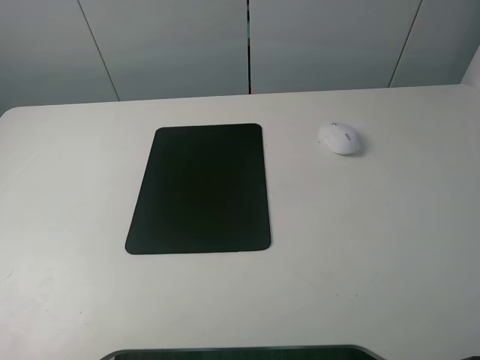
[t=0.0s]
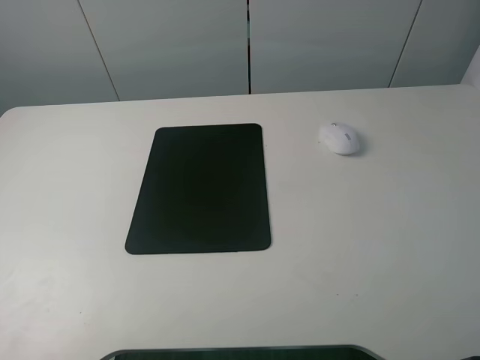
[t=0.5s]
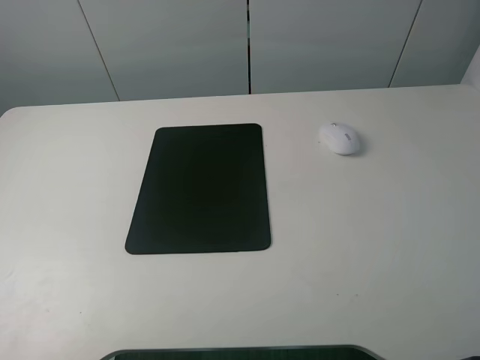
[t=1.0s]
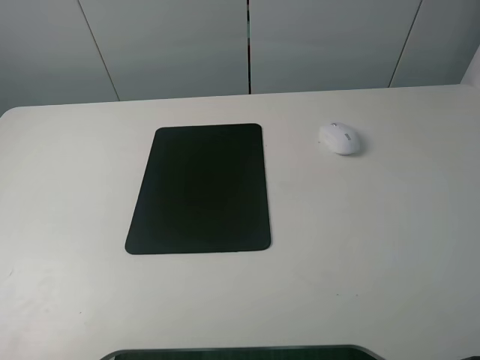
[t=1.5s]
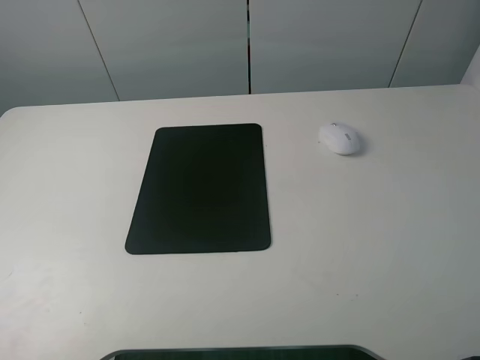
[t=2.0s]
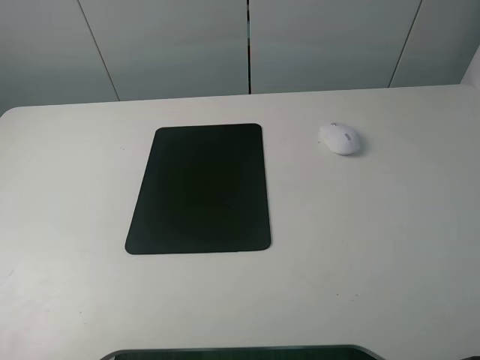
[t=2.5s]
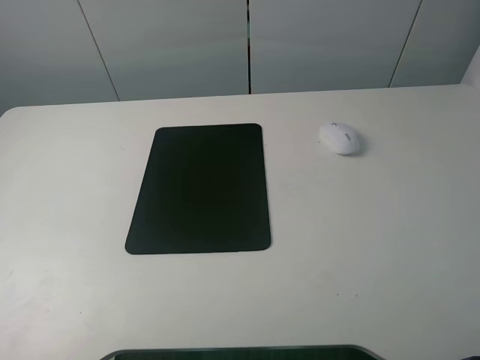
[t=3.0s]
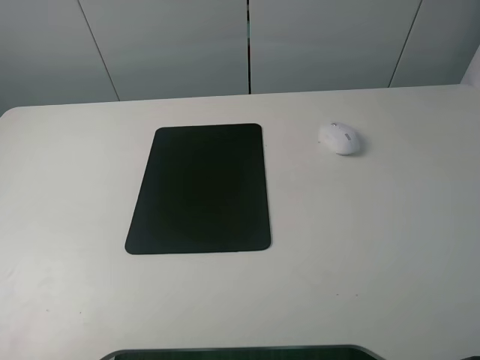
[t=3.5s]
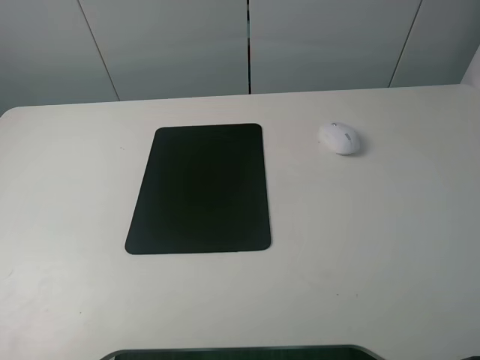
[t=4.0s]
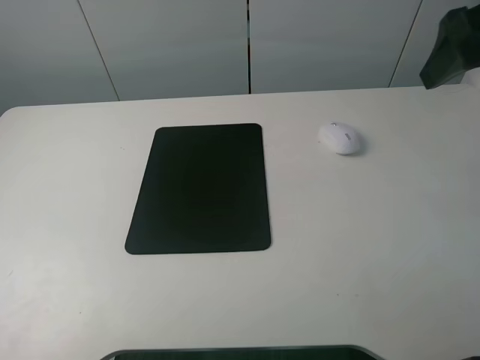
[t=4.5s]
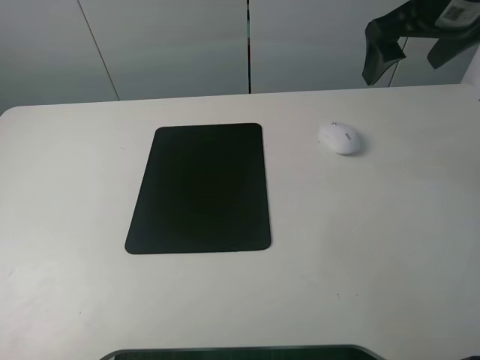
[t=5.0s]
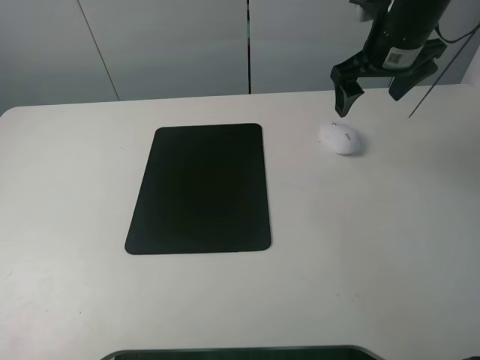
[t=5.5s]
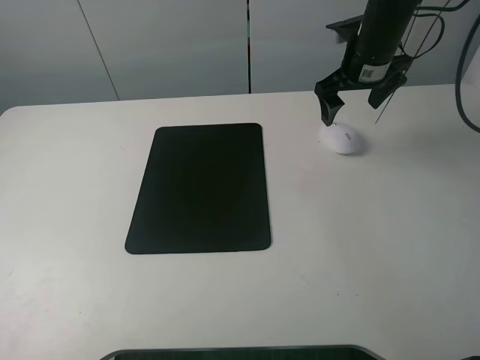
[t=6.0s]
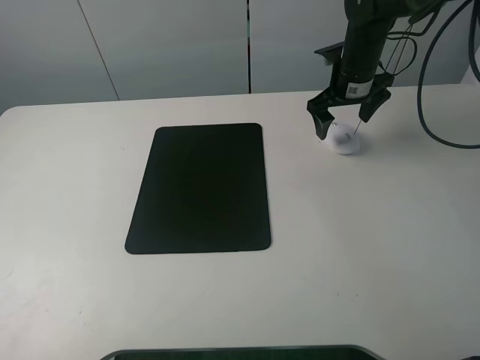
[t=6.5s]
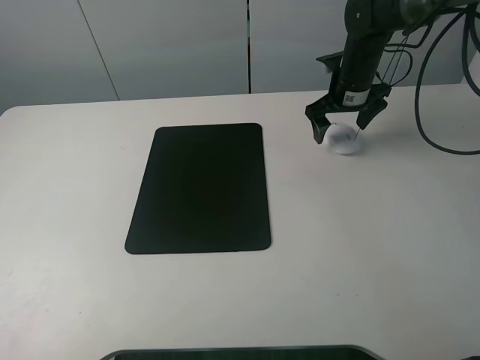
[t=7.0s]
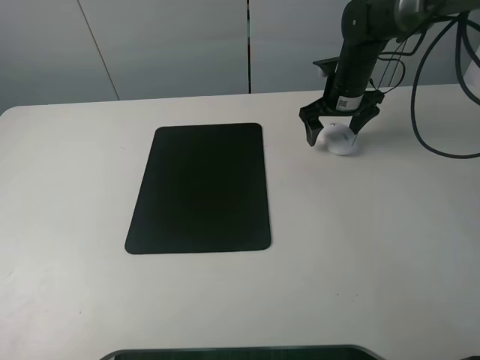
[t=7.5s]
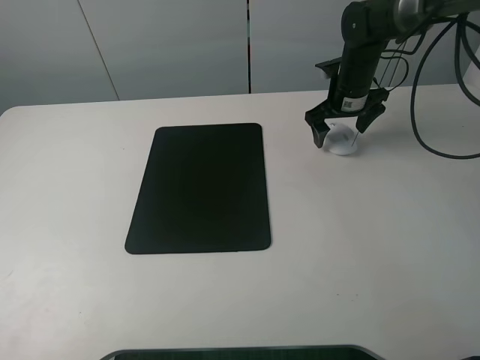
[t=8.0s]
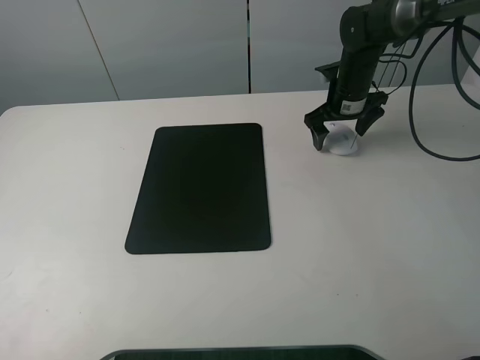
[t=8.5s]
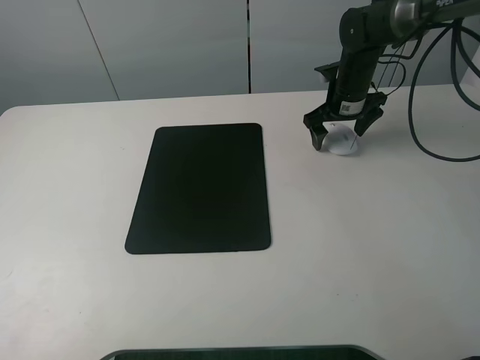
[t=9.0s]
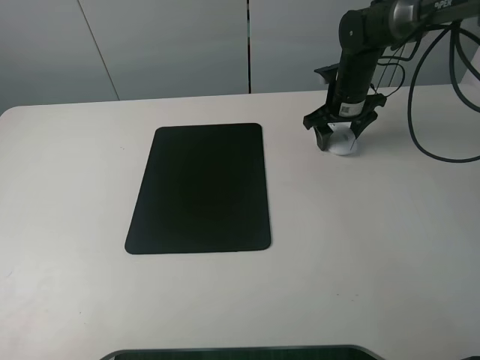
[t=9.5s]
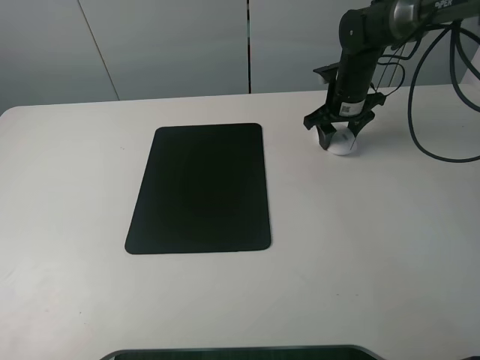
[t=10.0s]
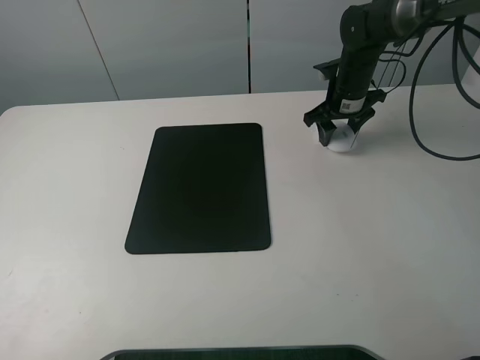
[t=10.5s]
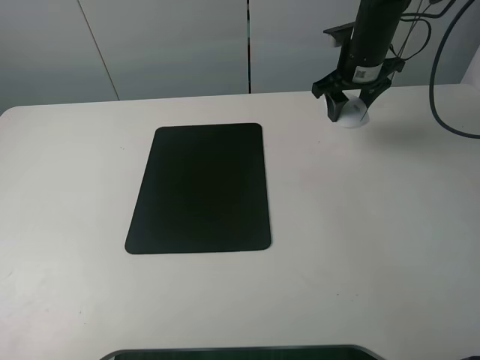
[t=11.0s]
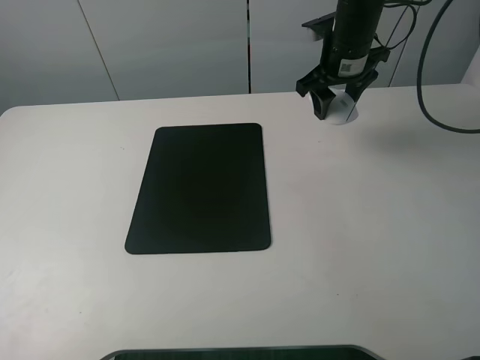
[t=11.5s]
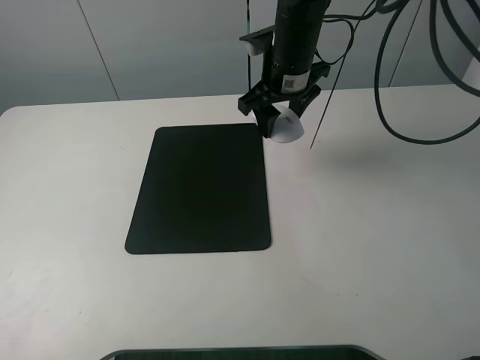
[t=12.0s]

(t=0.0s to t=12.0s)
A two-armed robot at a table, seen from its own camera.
Step, t=0.0s - t=9.5s: Grasp the mouse with the right gripper.
t=0.0s - t=2.0s: Both grippers stay about where they are.
t=4.0s - t=6.0s: The right gripper shifts roughly 35 cm forward and downward.
t=6.0s - t=8.0s: The right gripper heads downward, covering approximately 5 cm.
t=8.0s - t=10.0s: The right gripper closes its fingers.
t=10.0s - t=12.0s: The right gripper is displaced to the left, upward and backward by roughly 20 cm.

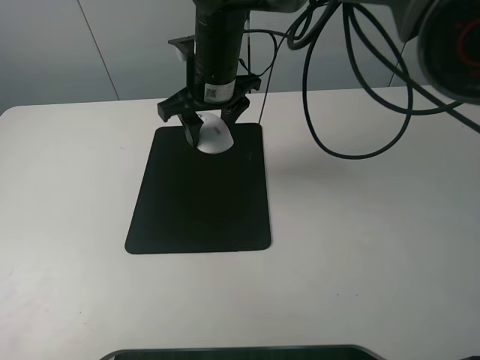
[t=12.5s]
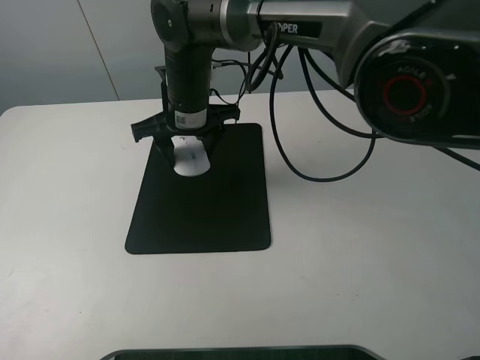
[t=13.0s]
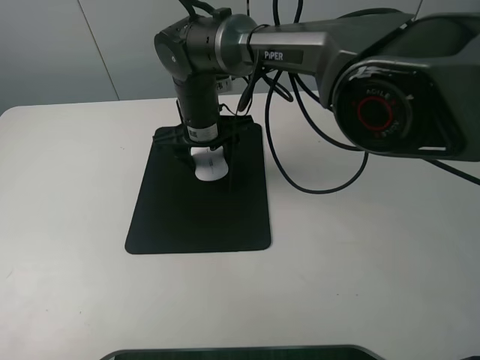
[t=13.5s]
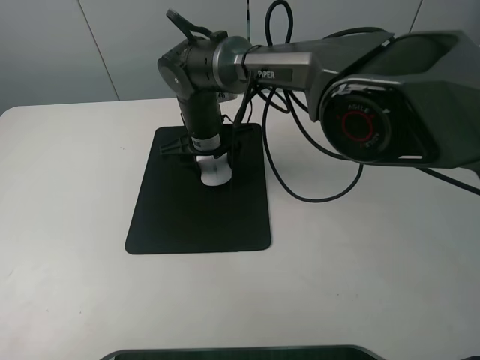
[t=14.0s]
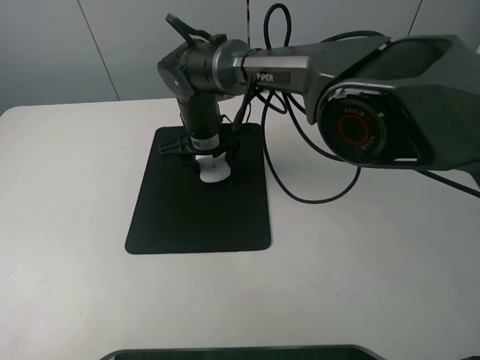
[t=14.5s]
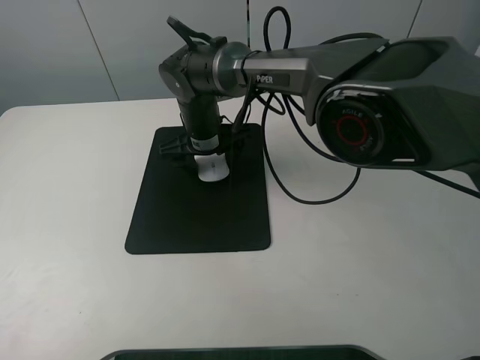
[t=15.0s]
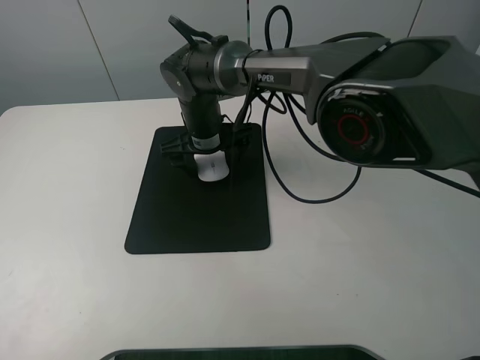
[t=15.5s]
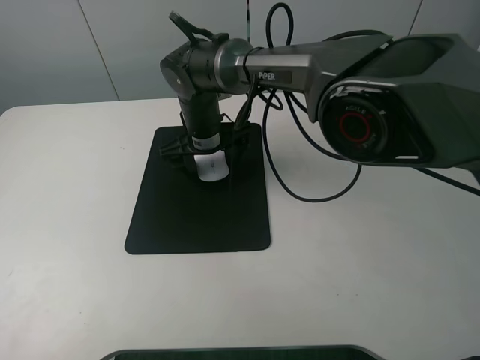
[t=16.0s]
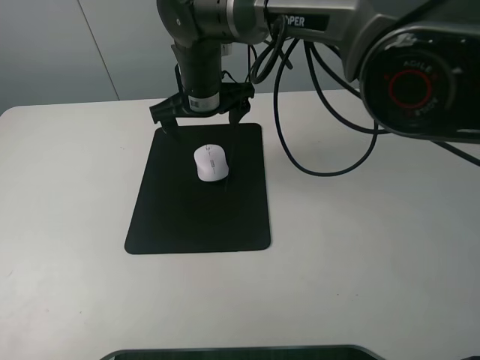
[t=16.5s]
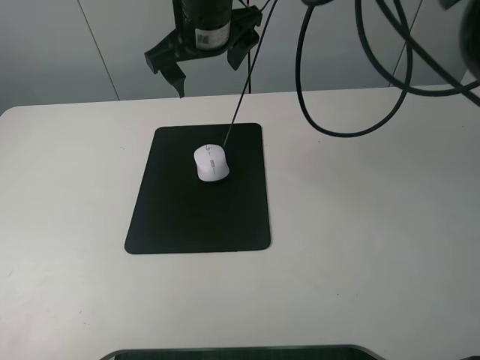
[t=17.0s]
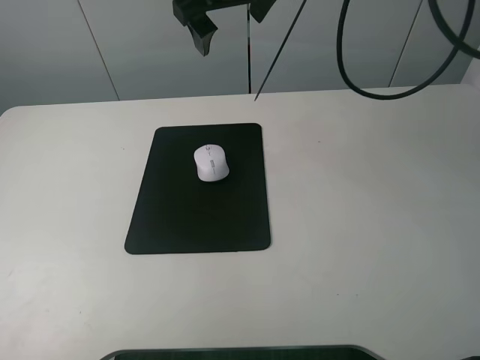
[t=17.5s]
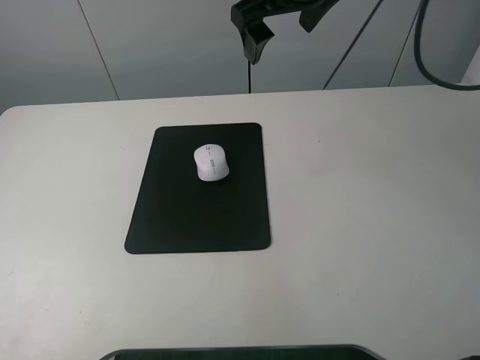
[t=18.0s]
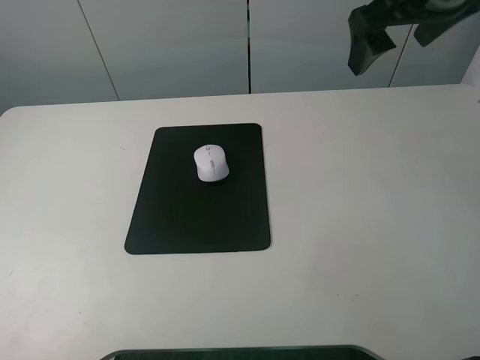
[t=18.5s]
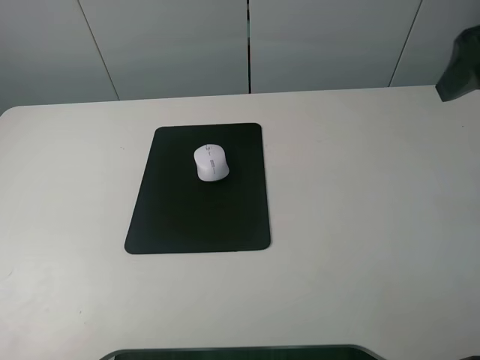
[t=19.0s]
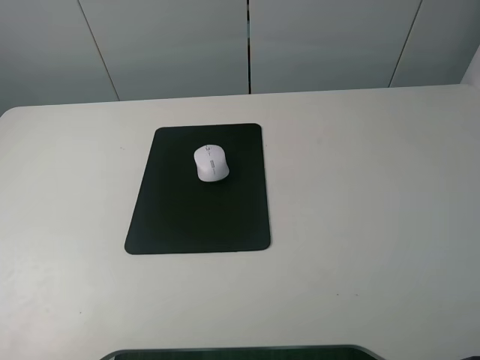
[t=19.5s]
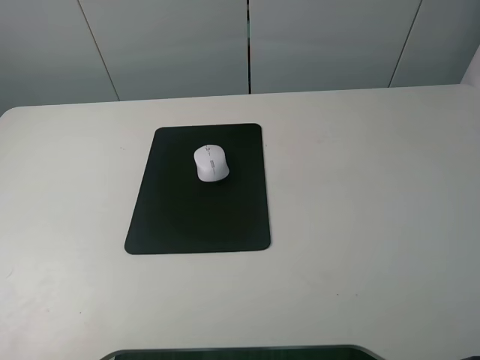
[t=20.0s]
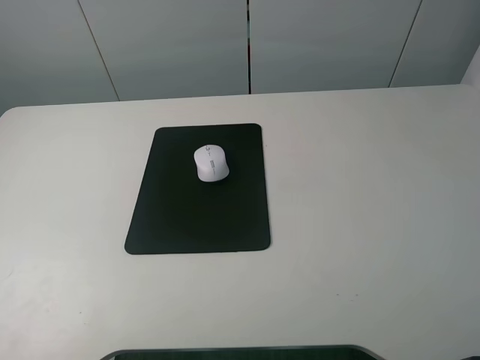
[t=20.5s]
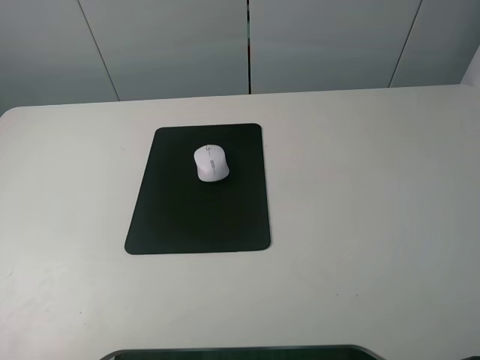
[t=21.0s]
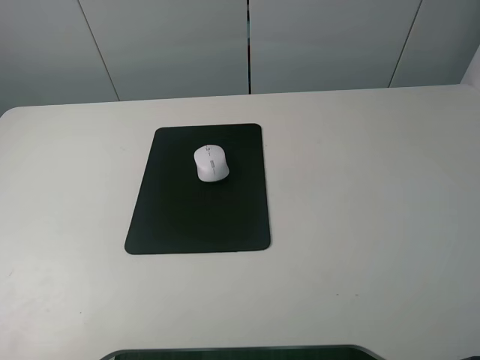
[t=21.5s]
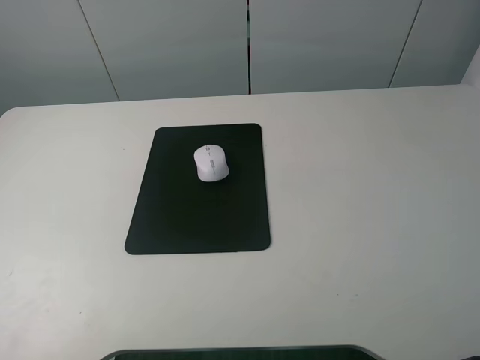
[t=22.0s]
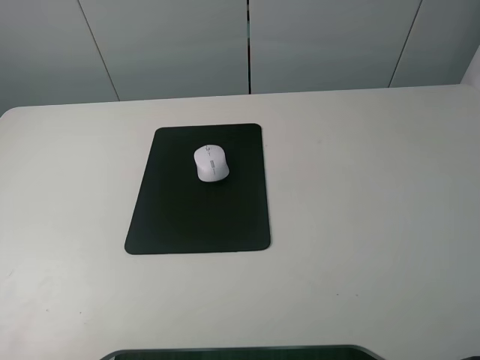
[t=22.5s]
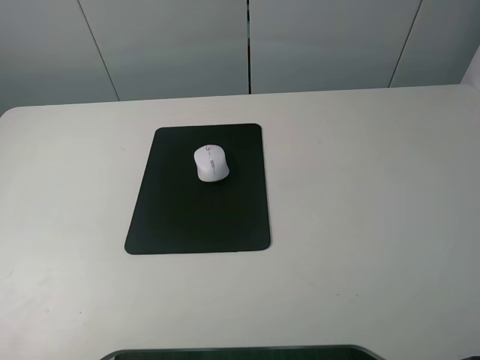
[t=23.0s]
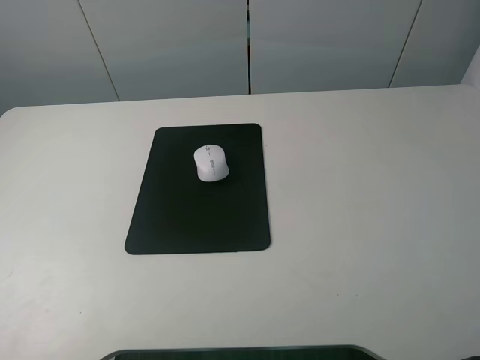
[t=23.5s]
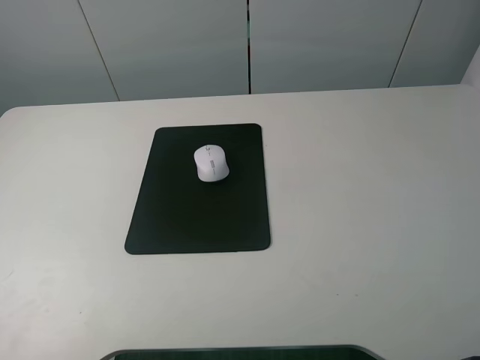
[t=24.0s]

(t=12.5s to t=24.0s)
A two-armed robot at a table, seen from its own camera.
Step, t=12.5s - t=14.5s: Place the mouse on the mouse mat with the right gripper.
t=12.5s - t=14.5s: The right gripper is displaced downward by about 10 cm.
t=14.5s - t=16.5s: The right gripper is displaced upward by some 10 cm, and opens its fingers.
t=16.5s - t=18.5s: The right gripper goes roughly 30 cm to the right and upward.
t=18.5s - t=20.0s: The right gripper heads backward and to the right, covering approximately 25 cm.

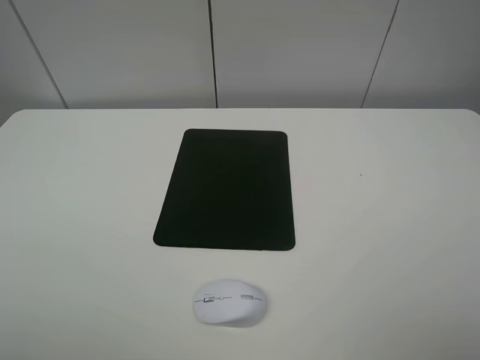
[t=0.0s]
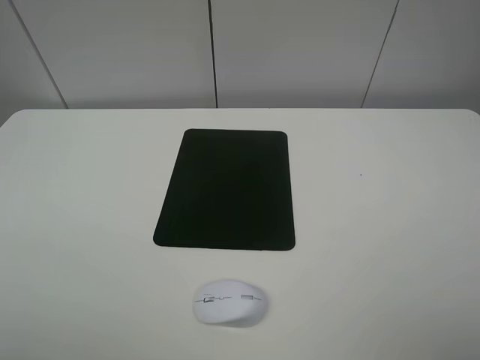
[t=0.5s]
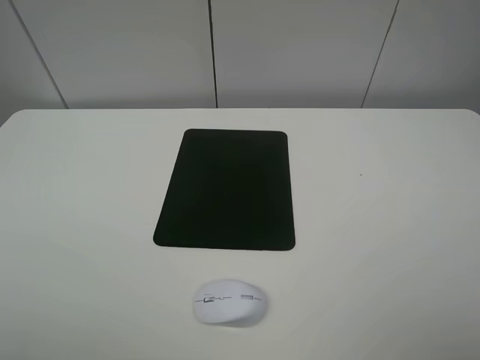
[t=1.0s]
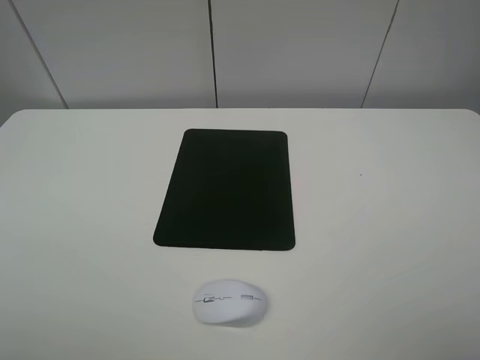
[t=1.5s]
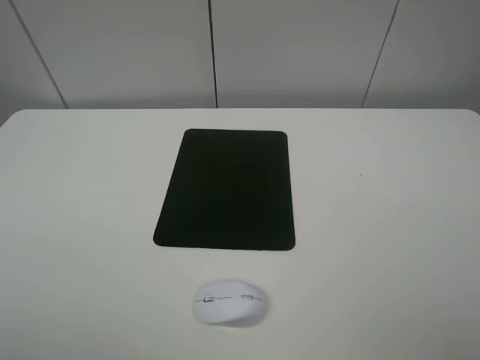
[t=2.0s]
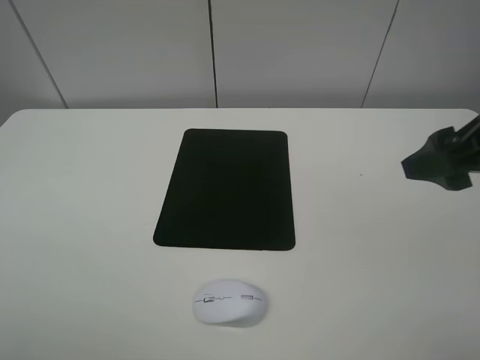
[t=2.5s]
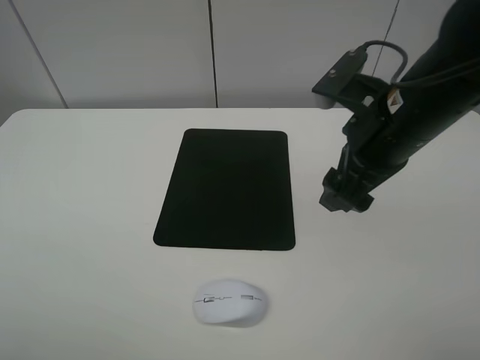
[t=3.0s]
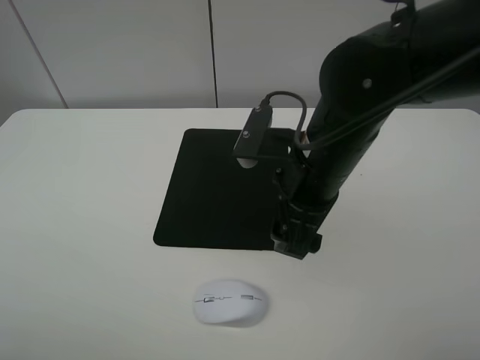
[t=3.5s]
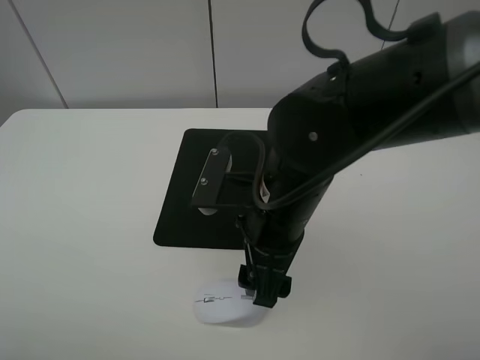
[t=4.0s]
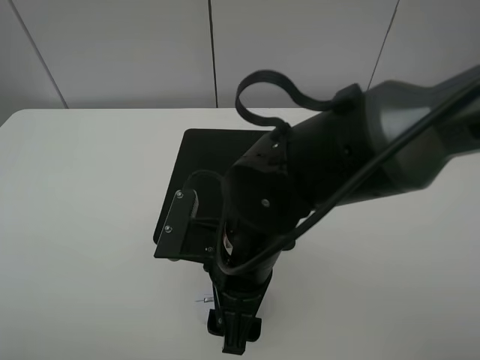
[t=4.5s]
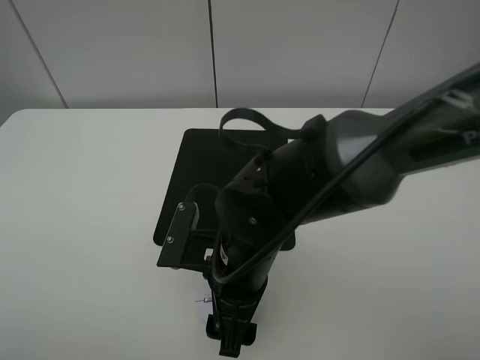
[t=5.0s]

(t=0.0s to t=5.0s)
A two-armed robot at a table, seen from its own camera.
t=0.0s - t=2.5s: The right gripper travels forward by approximately 20 cm.
t=2.5s - t=5.0s: The right gripper shifts about 30 cm to the left and downward.
